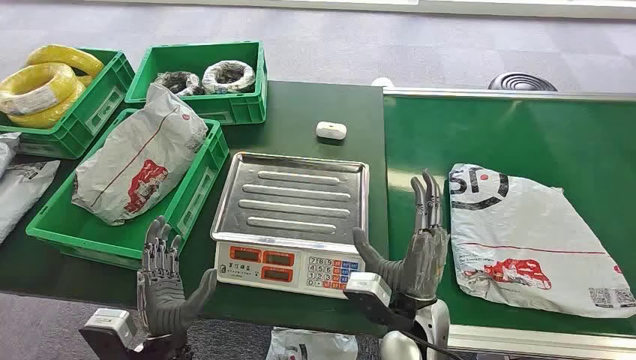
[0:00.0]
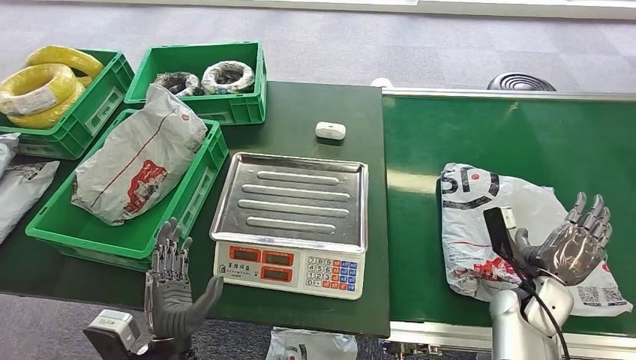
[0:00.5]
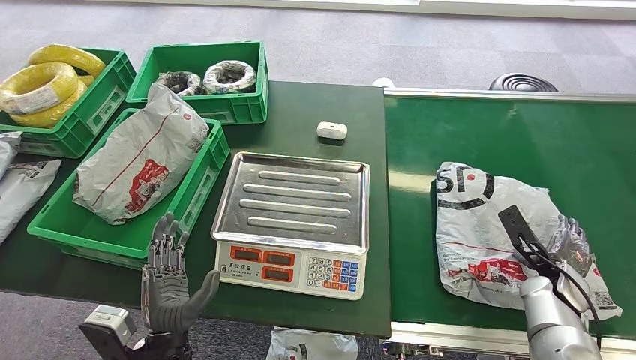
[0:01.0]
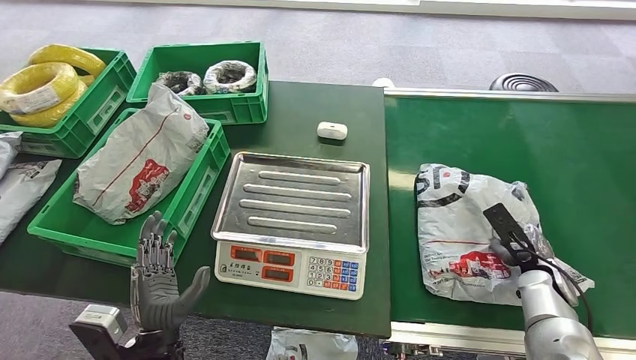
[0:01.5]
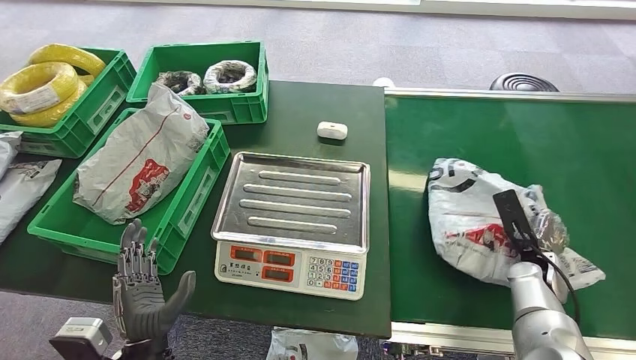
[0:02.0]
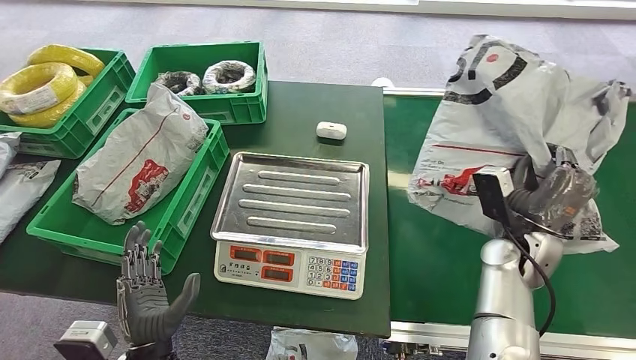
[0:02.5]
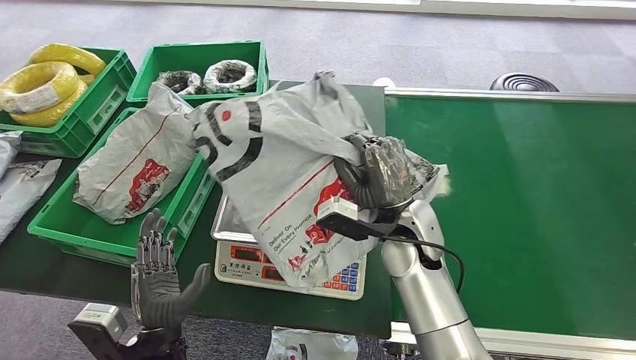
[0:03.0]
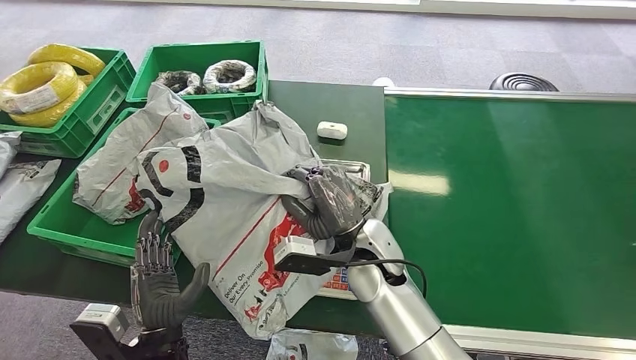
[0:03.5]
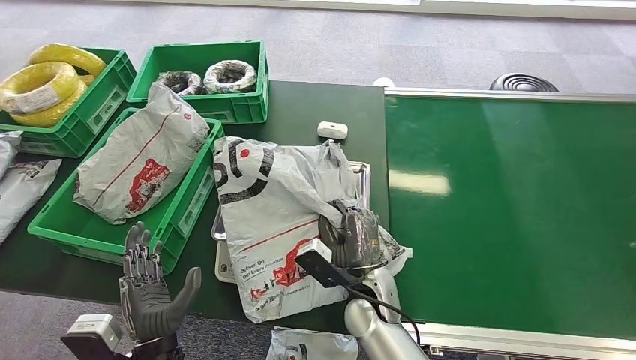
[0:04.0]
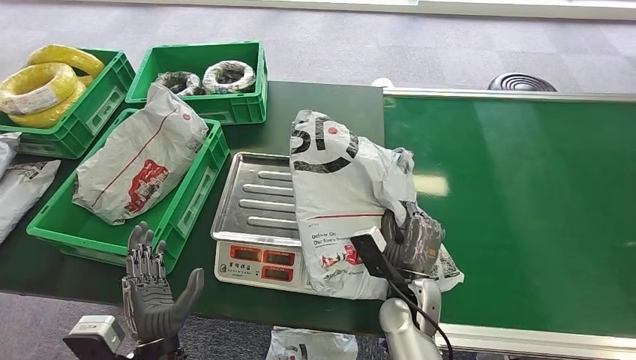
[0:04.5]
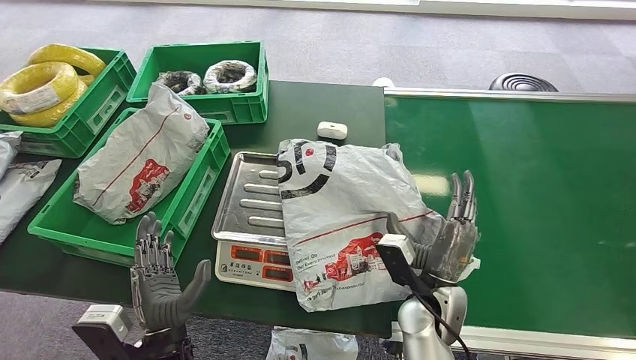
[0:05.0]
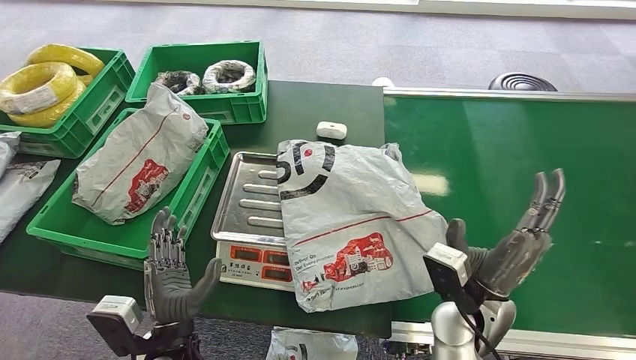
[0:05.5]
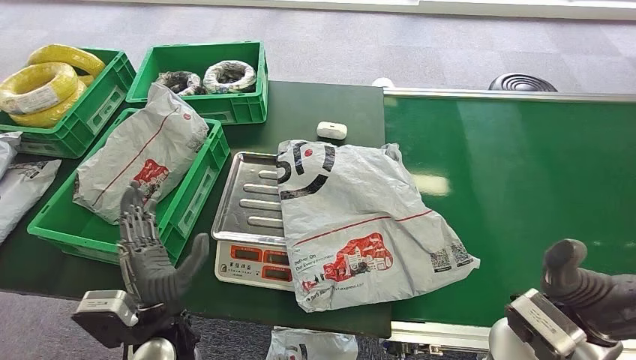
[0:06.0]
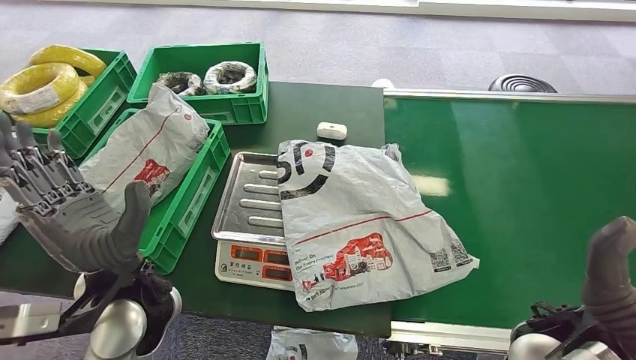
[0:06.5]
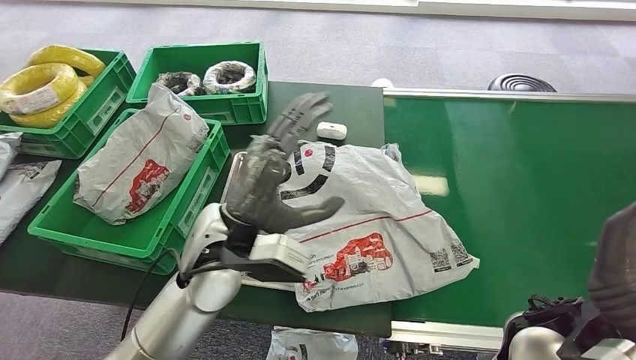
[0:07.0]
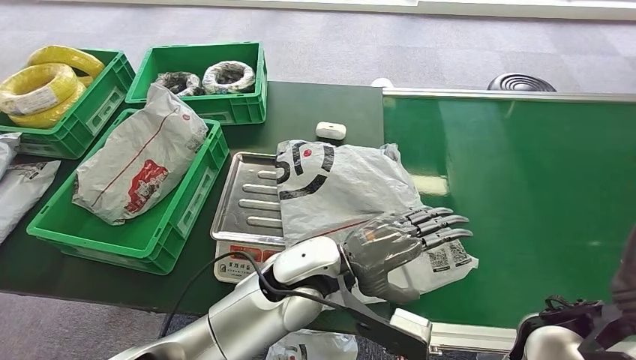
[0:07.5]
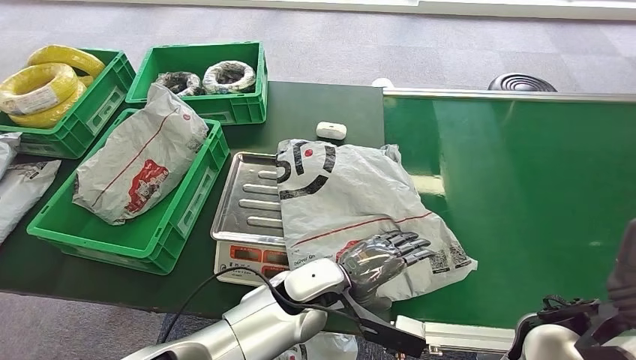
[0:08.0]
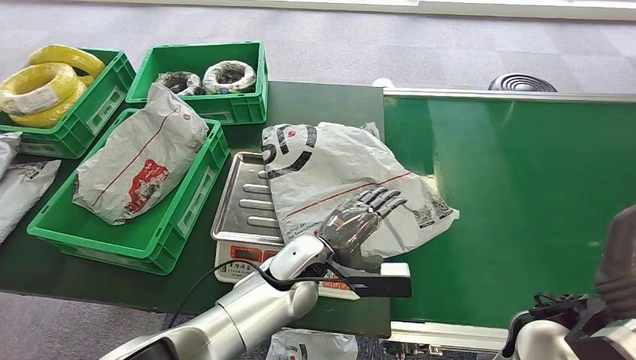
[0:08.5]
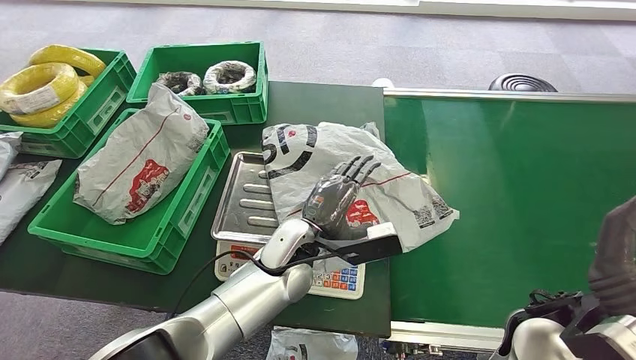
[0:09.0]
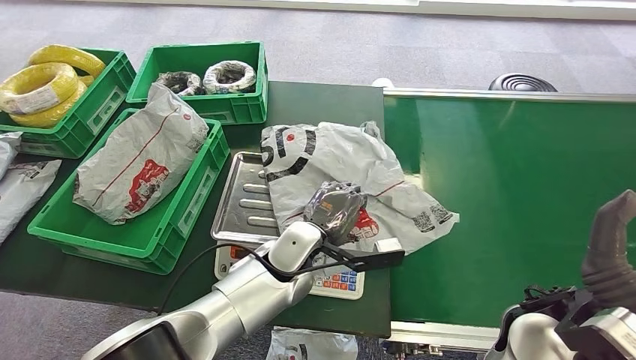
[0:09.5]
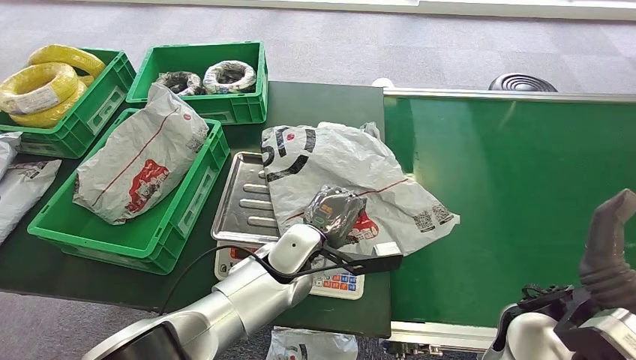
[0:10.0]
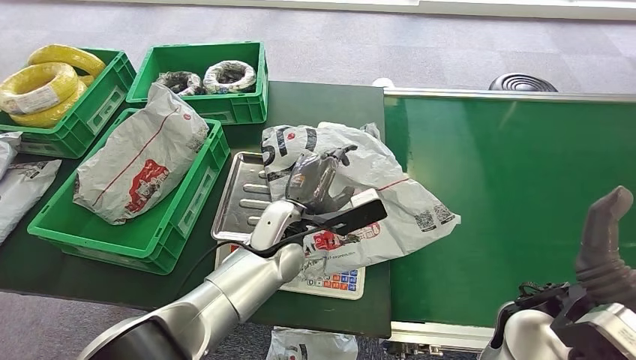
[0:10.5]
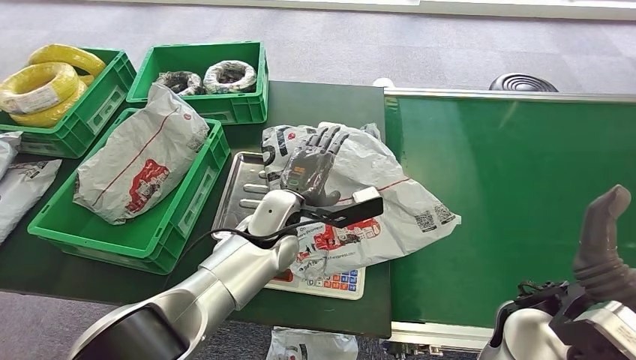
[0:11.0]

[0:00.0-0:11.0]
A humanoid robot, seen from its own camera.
Step, 0:00.0 to 0:02.5: Pick up the package from the conveyor belt.
Step, 0:03.0 to 0:06.0: Place the package onto the inbound machine.
0:07.5 to 0:09.0: The left hand changes place by approximately 5 cm.
0:09.0 to 0:11.0: The left hand shifts by approximately 5 cm.

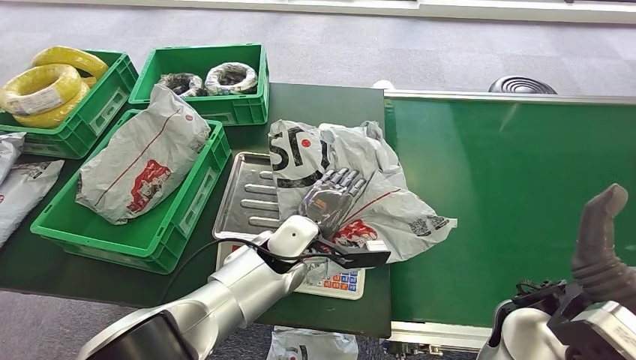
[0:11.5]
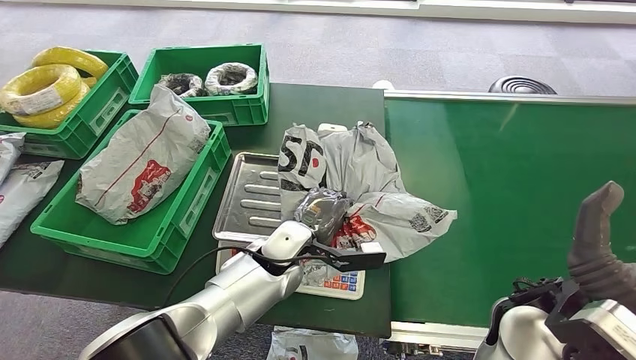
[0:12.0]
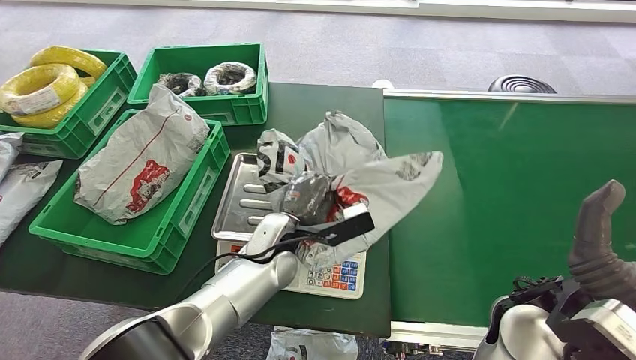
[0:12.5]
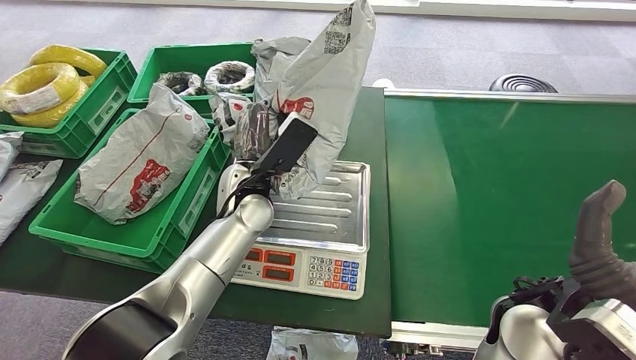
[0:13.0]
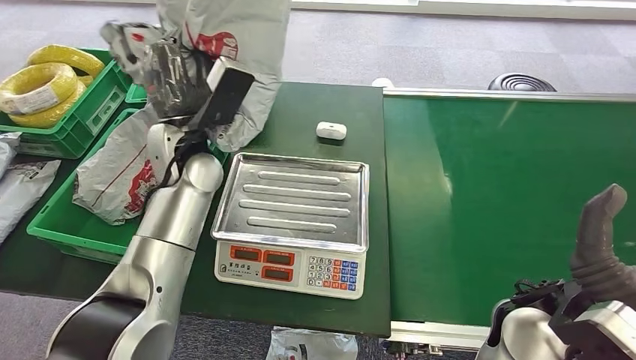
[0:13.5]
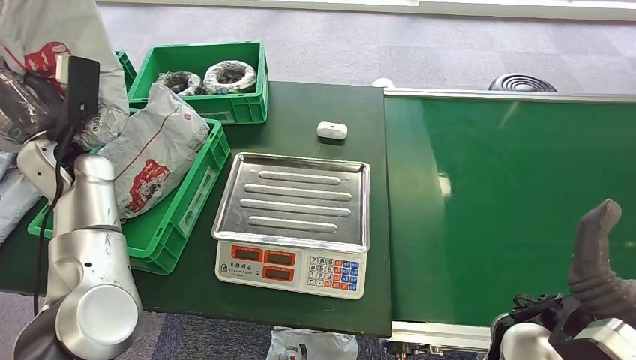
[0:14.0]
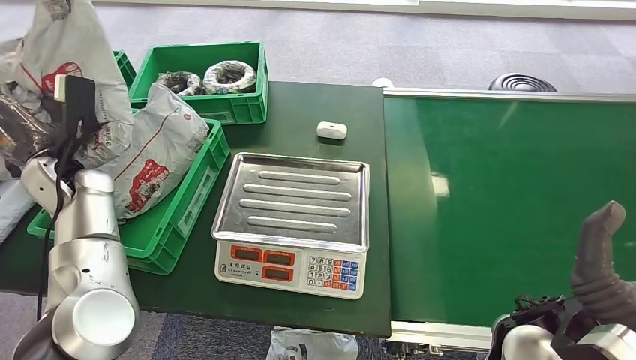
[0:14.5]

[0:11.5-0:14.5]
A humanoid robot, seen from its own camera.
Step, 0:13.5 to 0:14.0: Place the package into the parcel locker.
